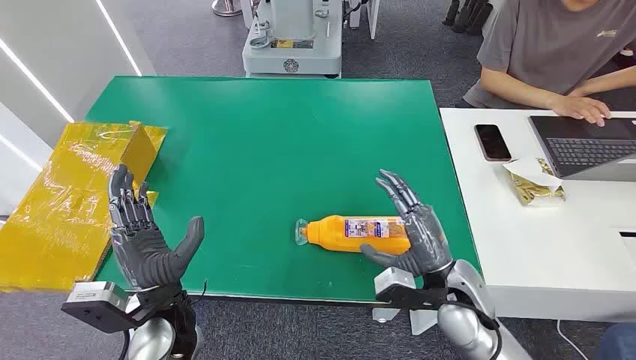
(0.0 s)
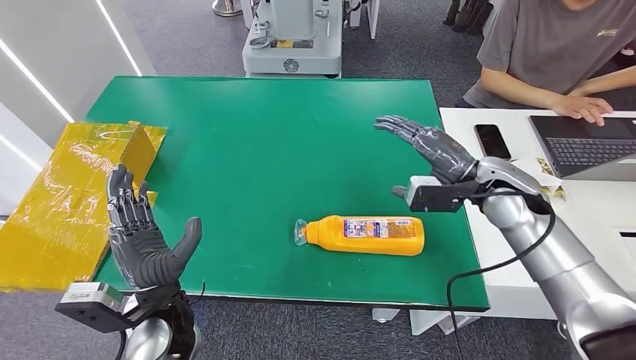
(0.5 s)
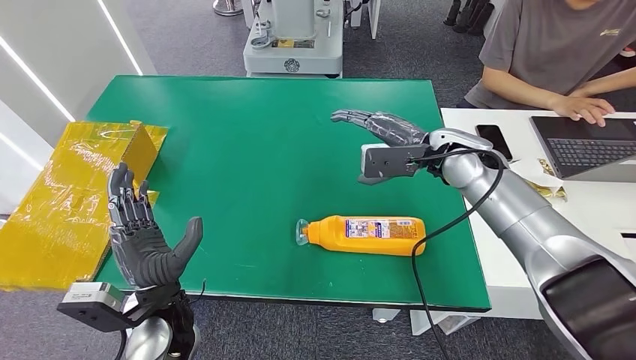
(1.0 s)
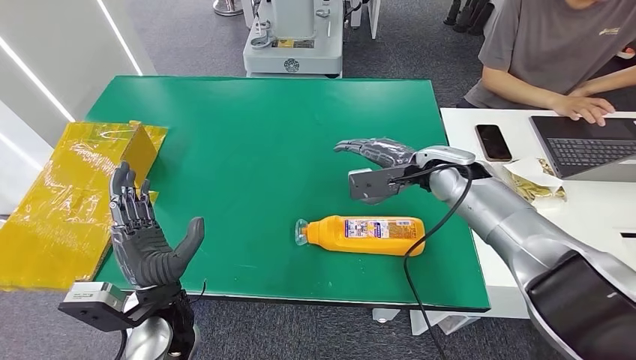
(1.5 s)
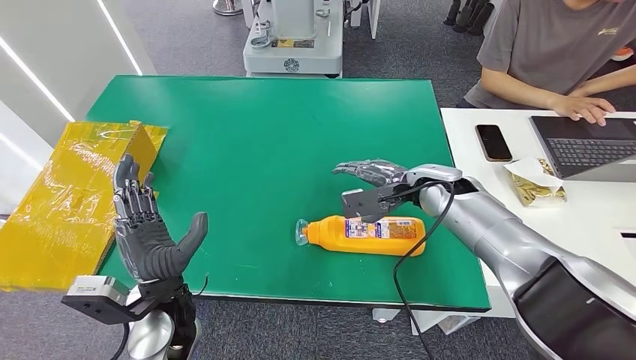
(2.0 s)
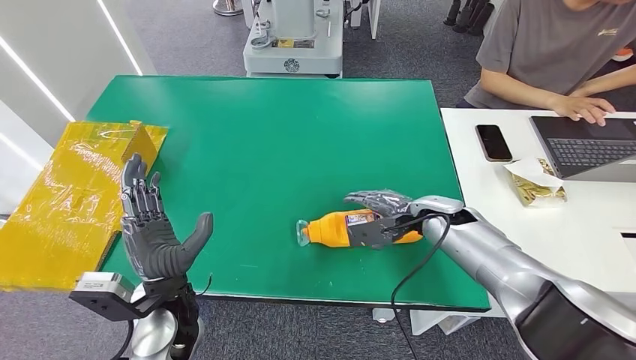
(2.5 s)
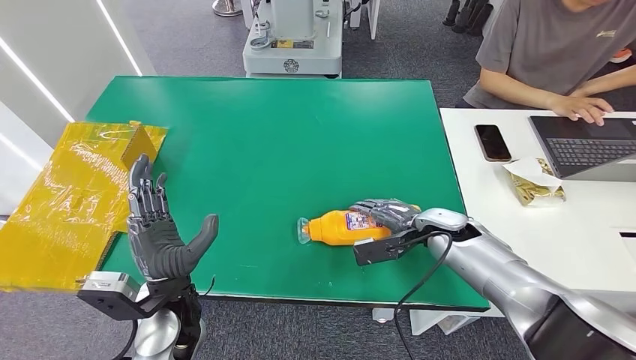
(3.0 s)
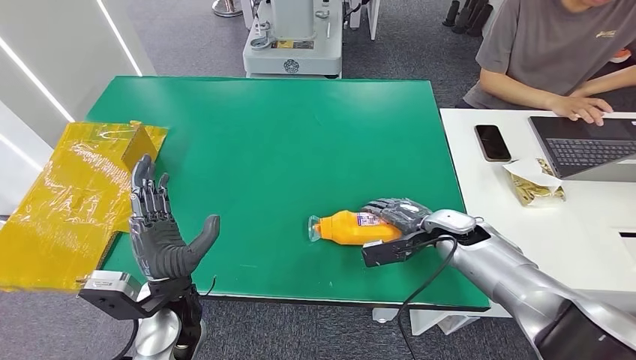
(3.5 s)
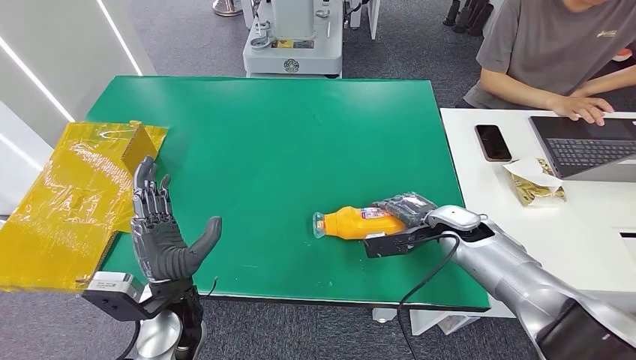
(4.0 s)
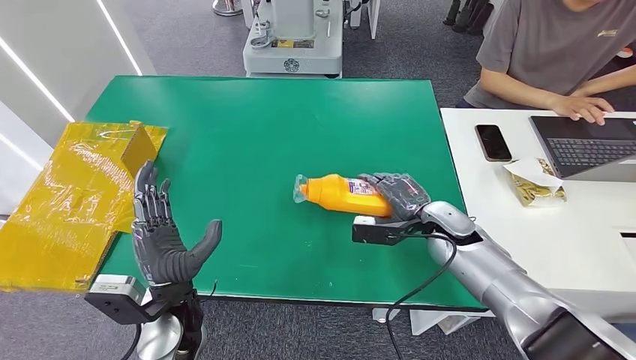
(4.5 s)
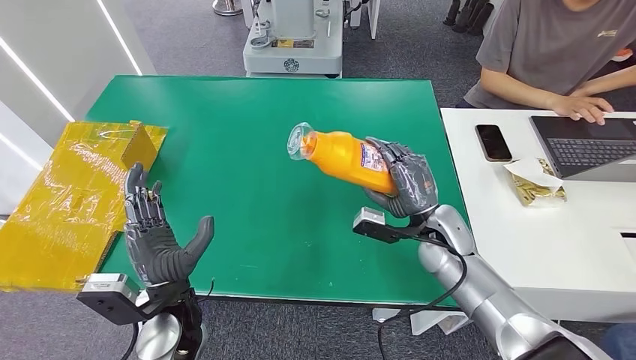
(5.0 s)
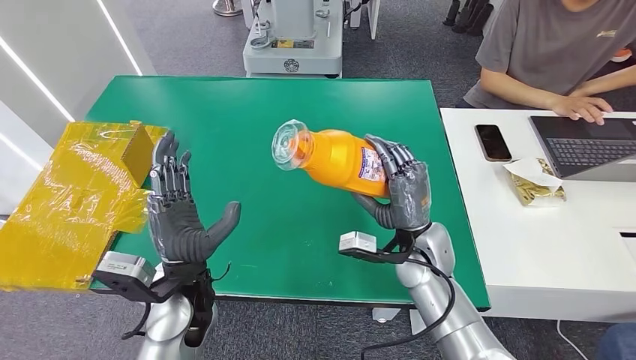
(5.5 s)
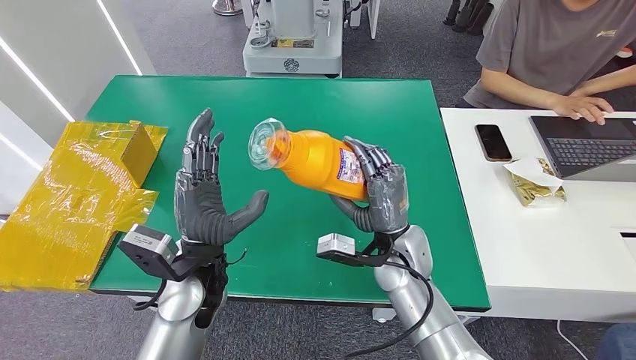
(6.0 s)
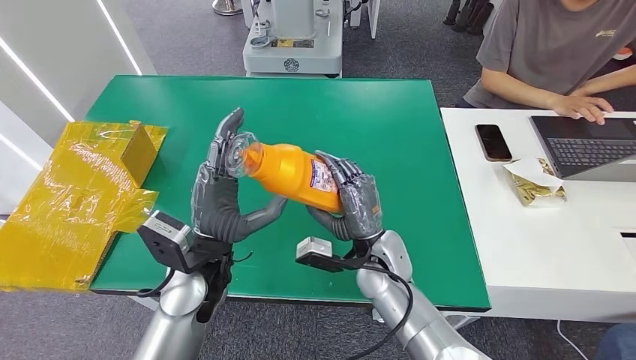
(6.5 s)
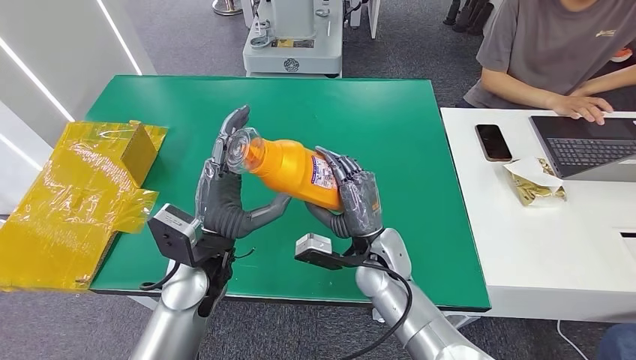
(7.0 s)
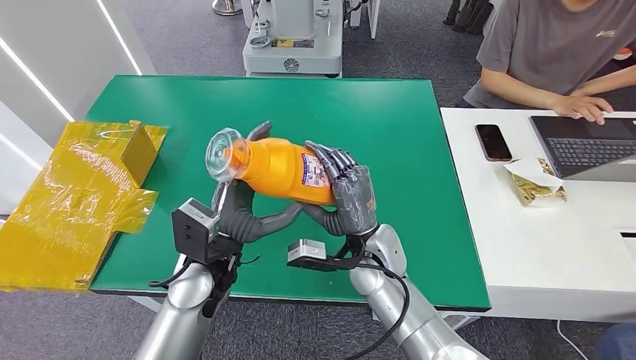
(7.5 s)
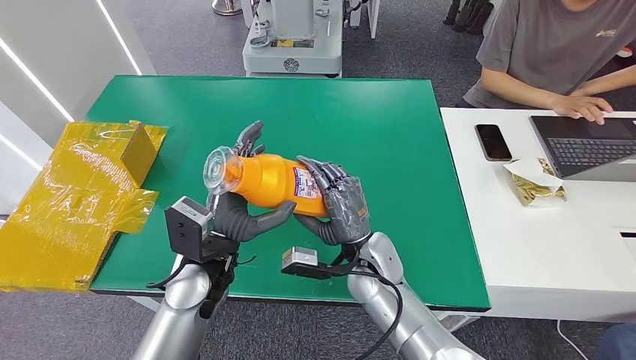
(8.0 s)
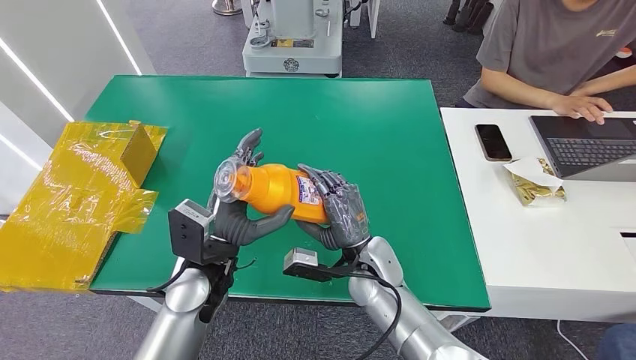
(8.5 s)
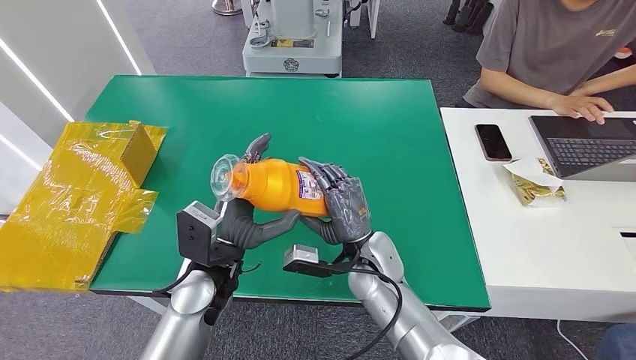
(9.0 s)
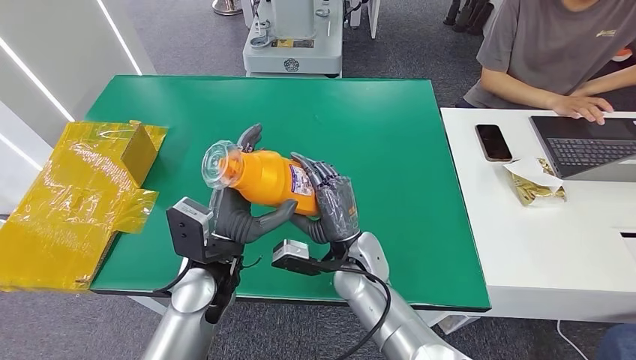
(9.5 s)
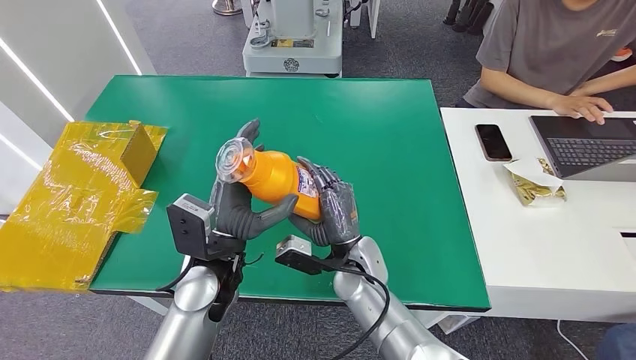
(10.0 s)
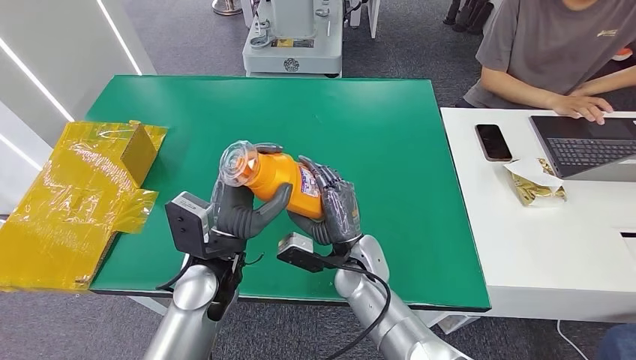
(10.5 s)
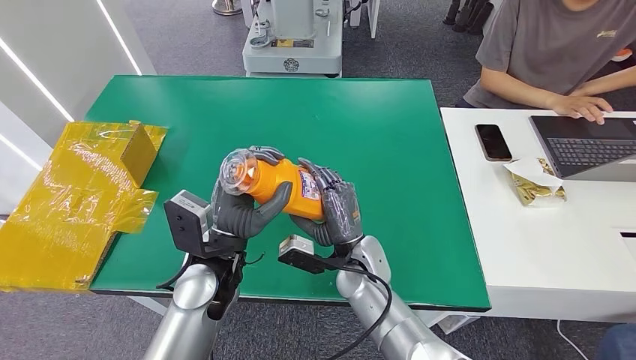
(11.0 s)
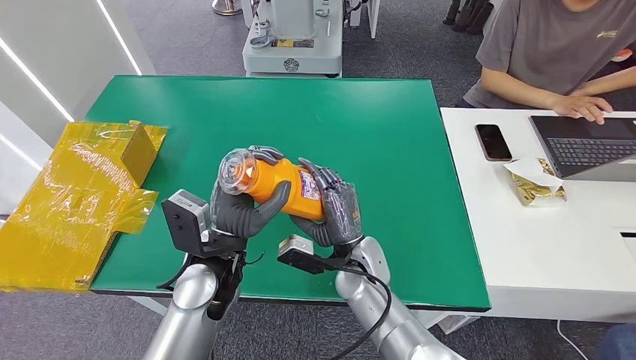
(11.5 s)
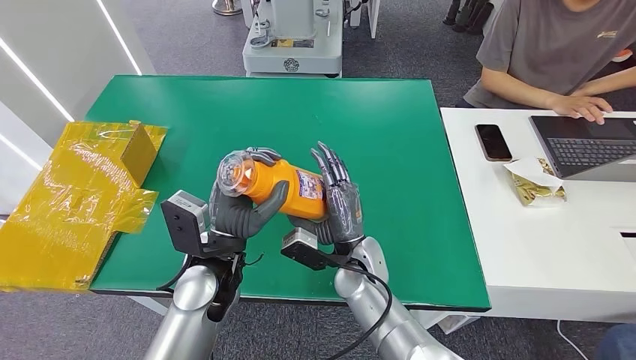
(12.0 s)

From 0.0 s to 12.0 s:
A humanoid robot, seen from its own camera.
Step, from 0.0 s to 5.0 s: Pick up the bottle from the table.
From 2.0 s to 4.0 s: The right hand heads downward and to the right, covering roughly 10 cm.
From 4.0 s to 6.0 s: The left hand moves some 10 cm; the right hand travels to the left and backward by some 15 cm.
From 6.0 s to 8.0 s: The right hand goes about 5 cm to the left.
From 8.0 s to 12.0 s: The hands stay close to where they were, moving slightly.

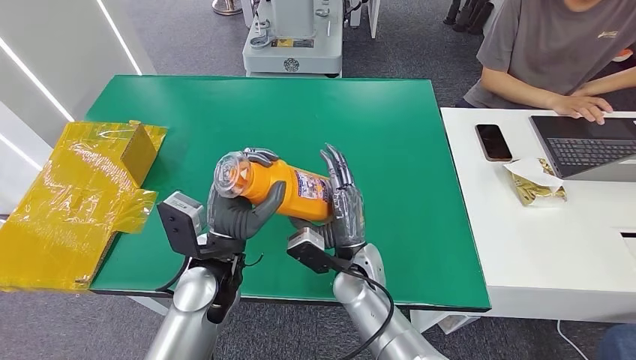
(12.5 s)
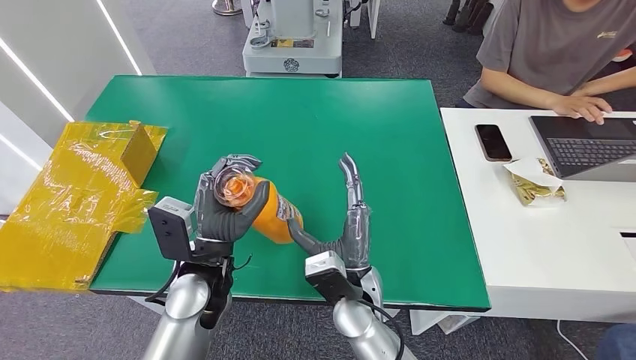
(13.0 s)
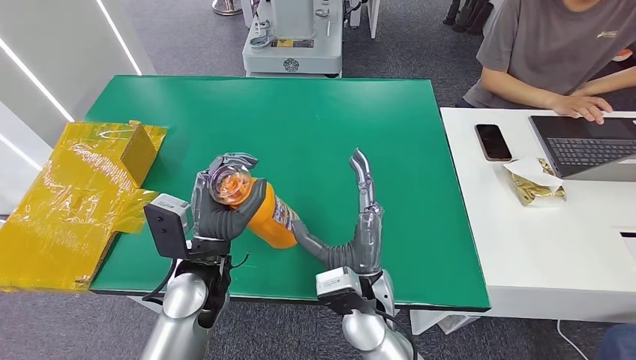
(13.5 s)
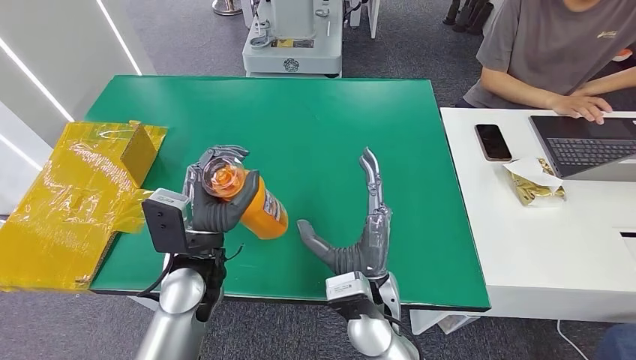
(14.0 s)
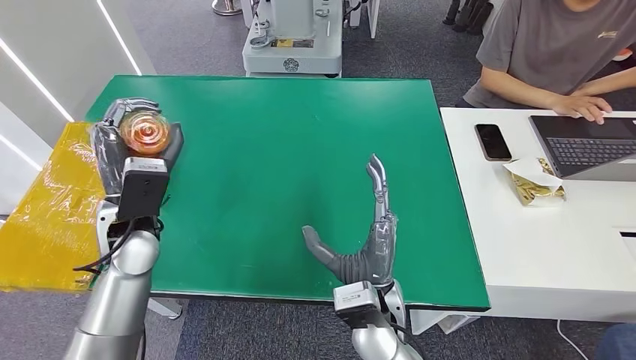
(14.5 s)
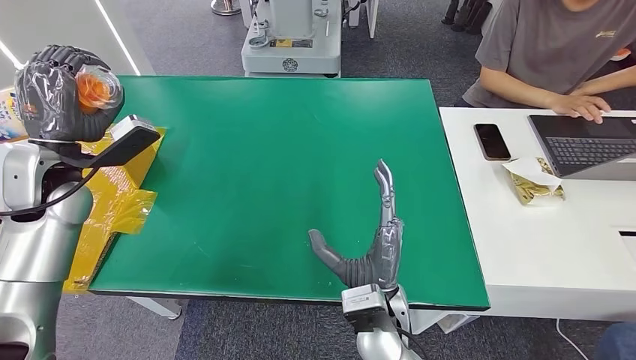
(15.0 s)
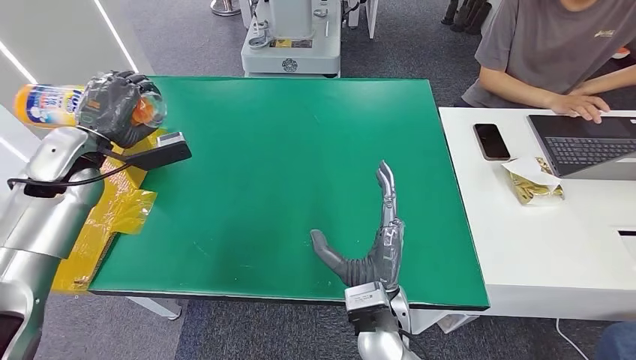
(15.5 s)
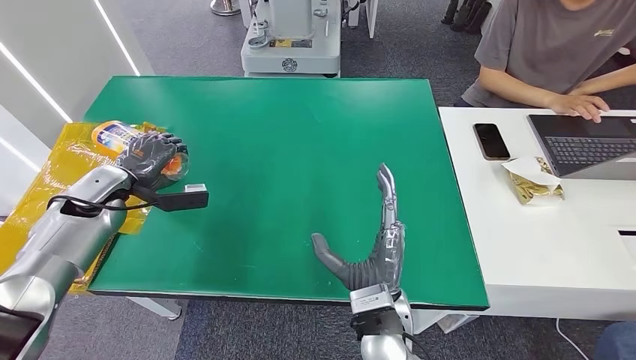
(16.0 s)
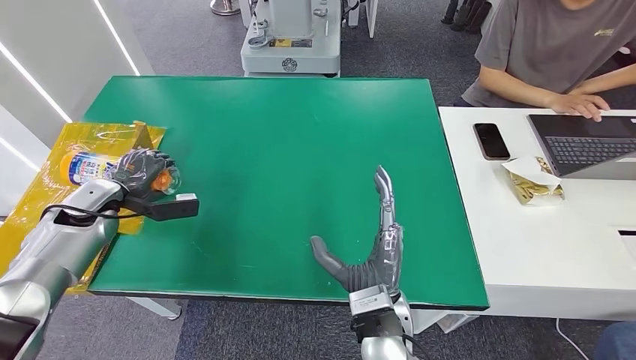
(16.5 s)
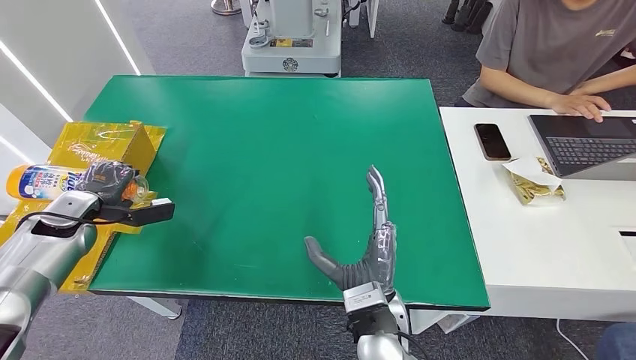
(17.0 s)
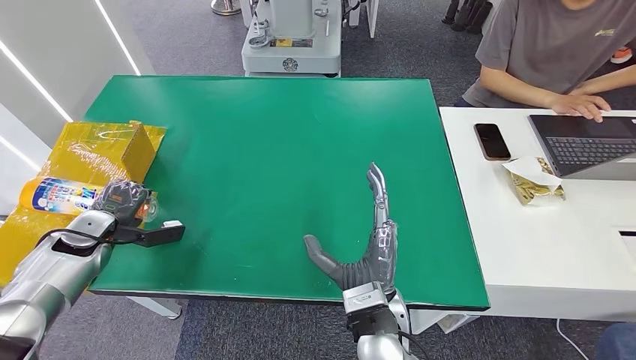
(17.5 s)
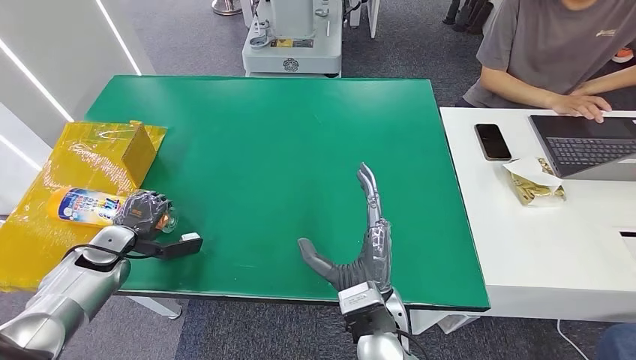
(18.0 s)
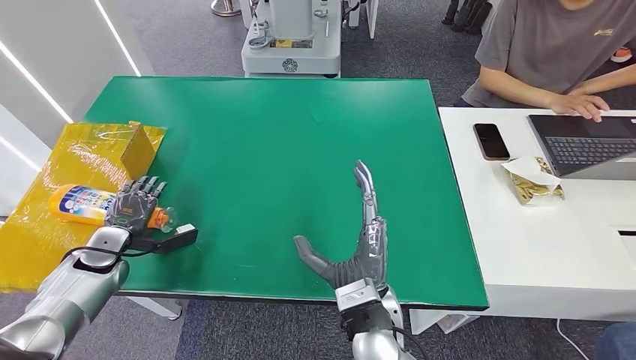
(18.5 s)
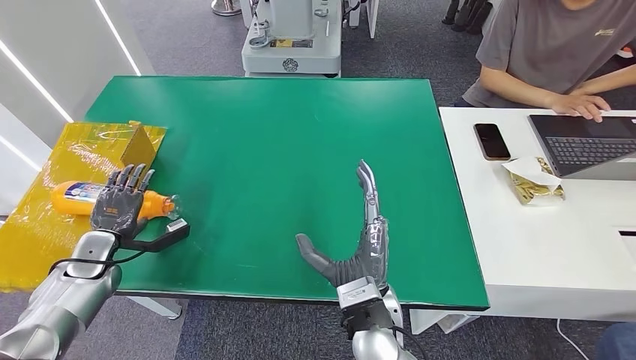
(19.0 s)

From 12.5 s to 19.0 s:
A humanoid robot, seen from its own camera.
Step, from 12.5 s to 19.0 s: Turn the bottle to the front side.
From 12.5 s to 14.5 s: The right hand moves backward, some 10 cm, while the left hand moves to the left and forward, some 15 cm.
From 14.5 s to 17.0 s: The left hand is displaced to the left by approximately 25 cm.
From 17.0 s to 19.0 s: The left hand travels downward and backward by about 10 cm.

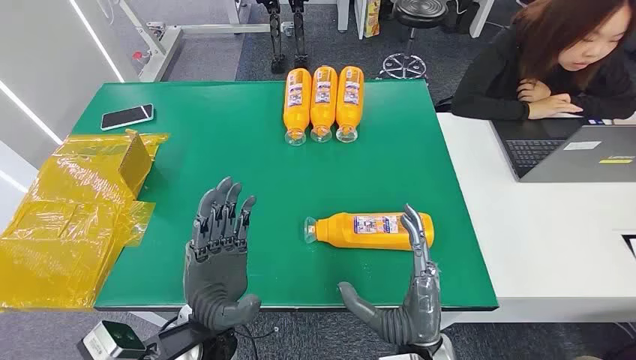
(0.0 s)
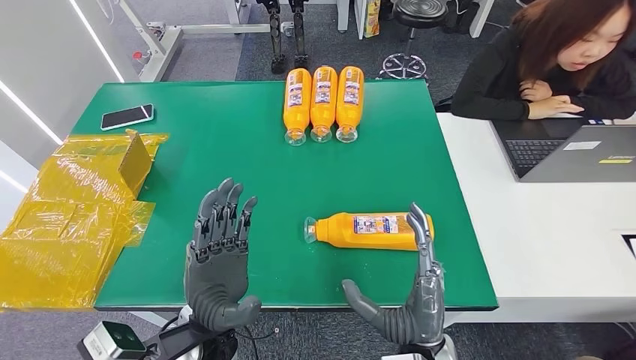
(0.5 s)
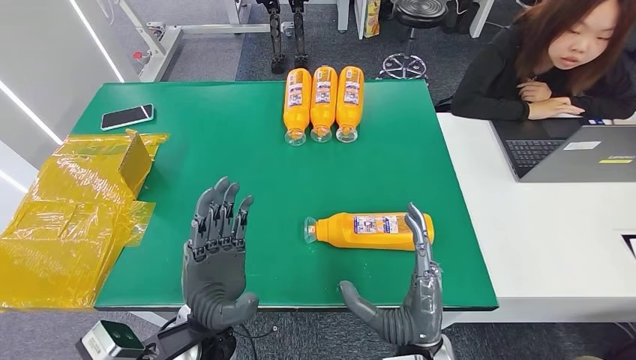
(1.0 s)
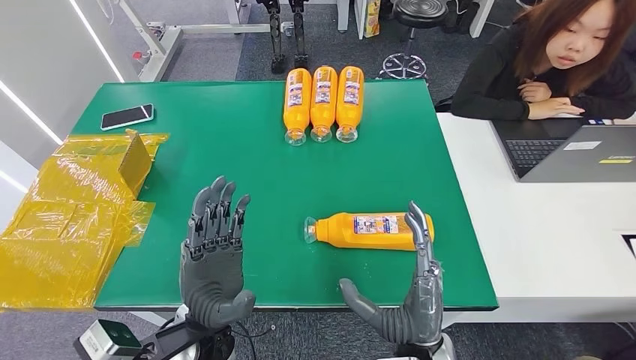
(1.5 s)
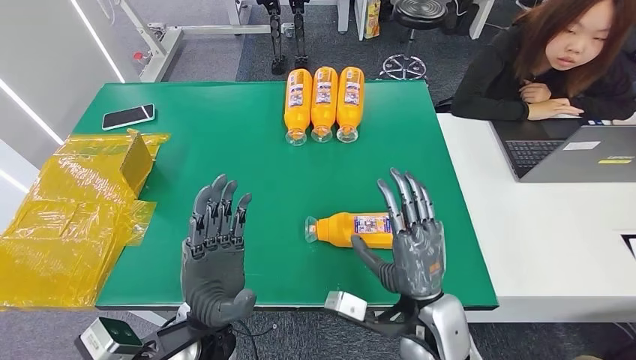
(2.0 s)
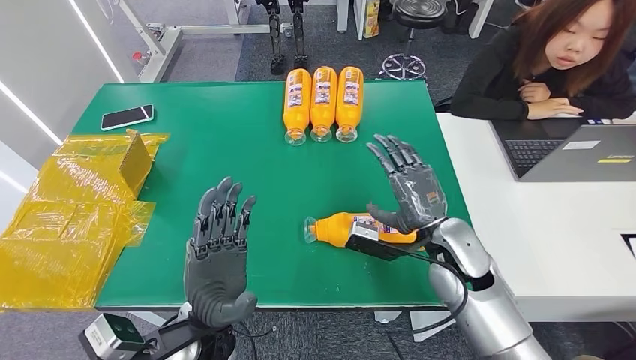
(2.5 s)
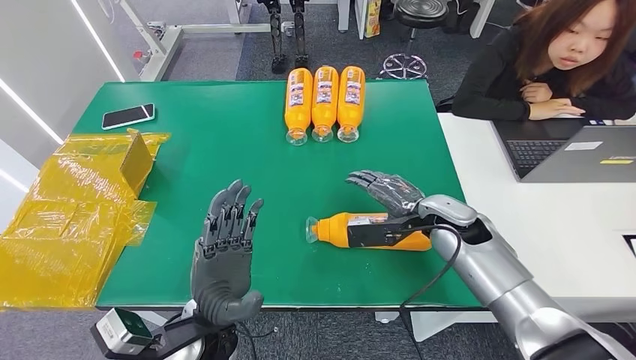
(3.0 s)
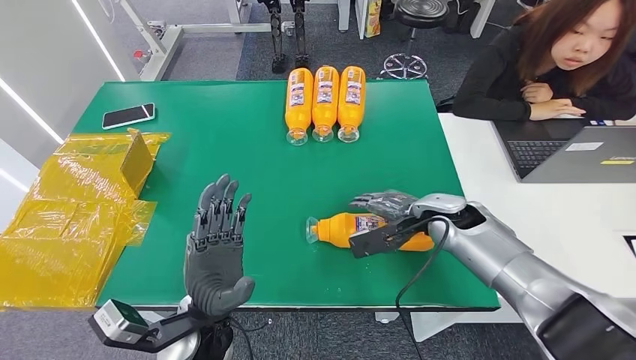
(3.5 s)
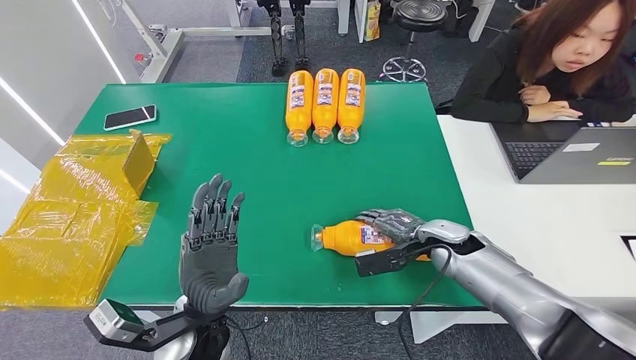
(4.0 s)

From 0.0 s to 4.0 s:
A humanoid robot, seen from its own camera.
From 2.0 s to 4.0 s: The right hand shifts approximately 20 cm forward and to the right.
